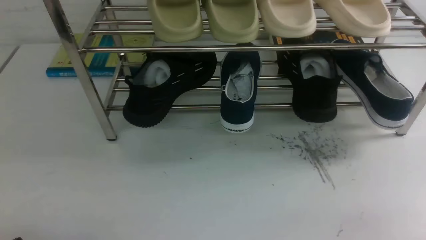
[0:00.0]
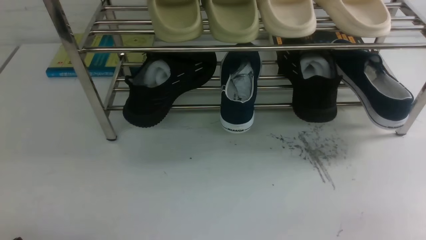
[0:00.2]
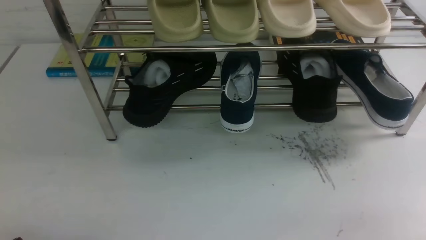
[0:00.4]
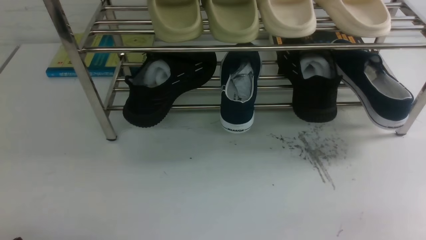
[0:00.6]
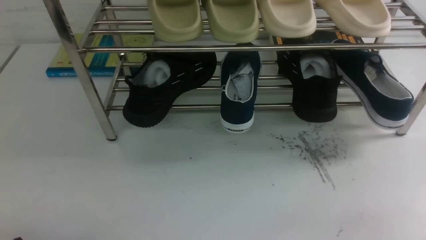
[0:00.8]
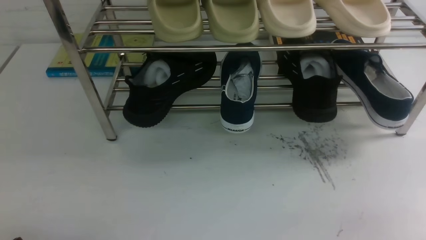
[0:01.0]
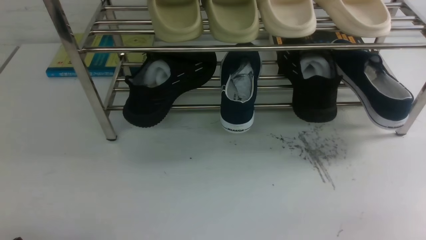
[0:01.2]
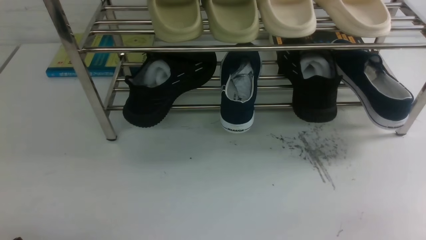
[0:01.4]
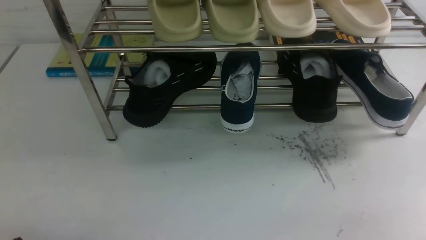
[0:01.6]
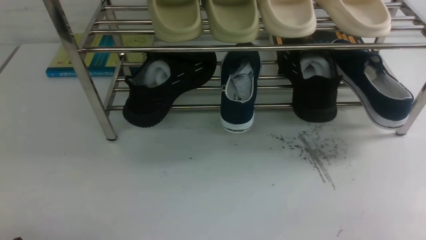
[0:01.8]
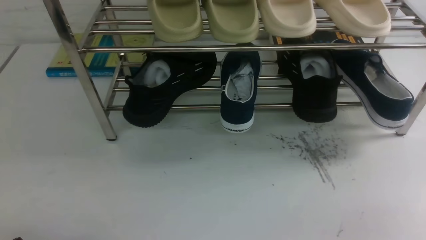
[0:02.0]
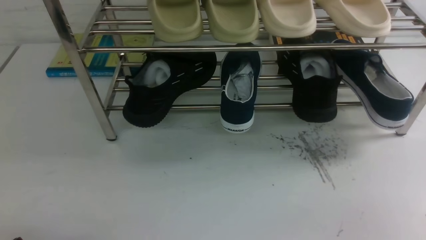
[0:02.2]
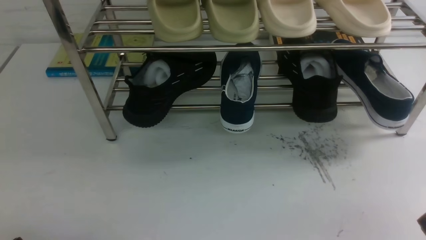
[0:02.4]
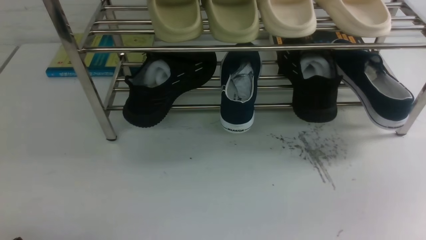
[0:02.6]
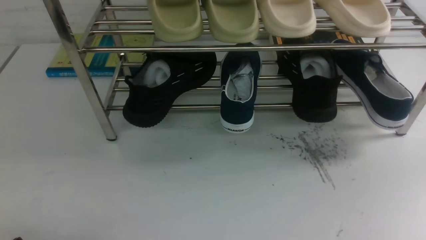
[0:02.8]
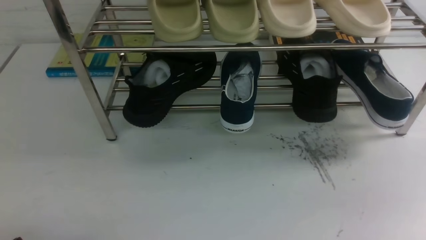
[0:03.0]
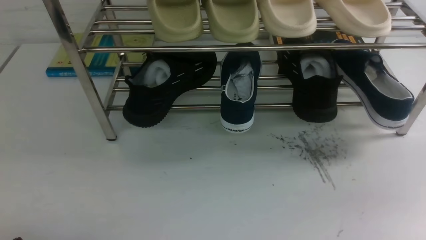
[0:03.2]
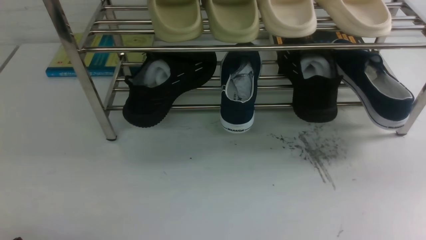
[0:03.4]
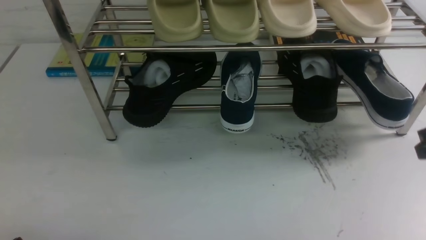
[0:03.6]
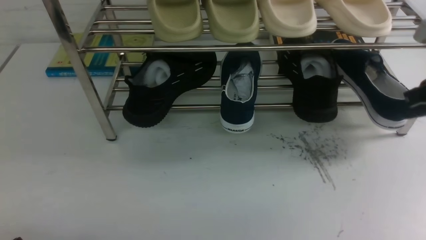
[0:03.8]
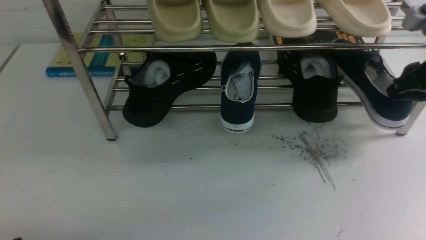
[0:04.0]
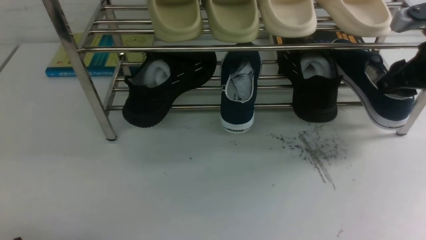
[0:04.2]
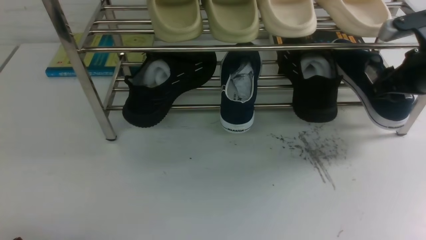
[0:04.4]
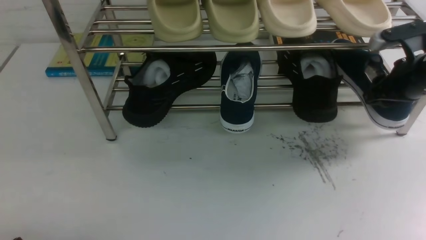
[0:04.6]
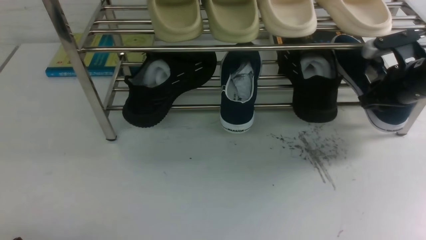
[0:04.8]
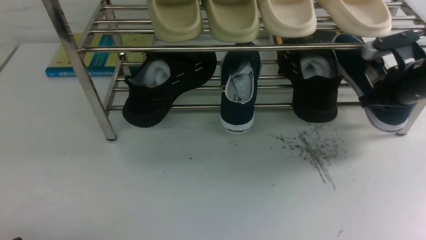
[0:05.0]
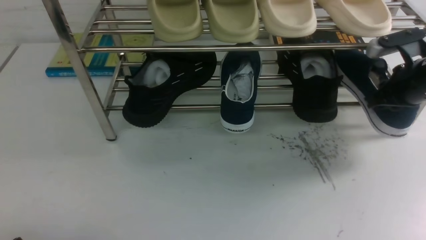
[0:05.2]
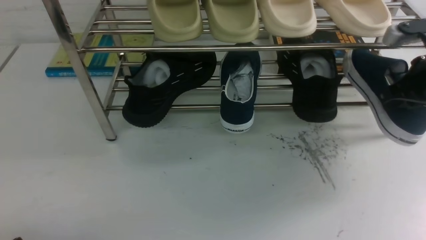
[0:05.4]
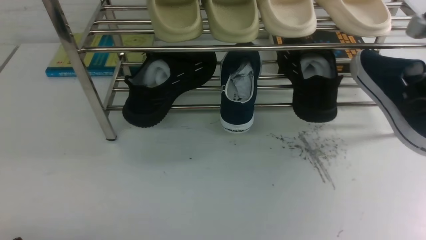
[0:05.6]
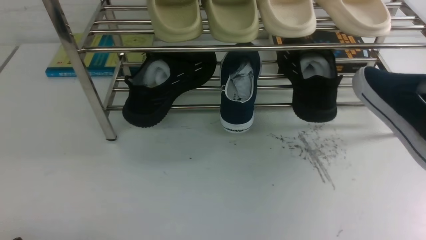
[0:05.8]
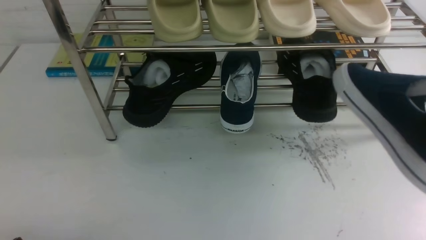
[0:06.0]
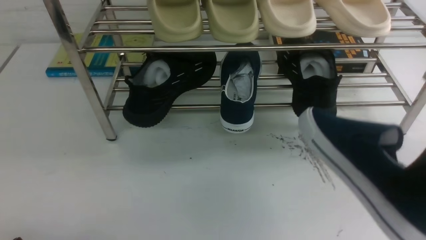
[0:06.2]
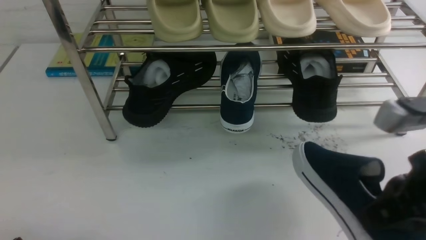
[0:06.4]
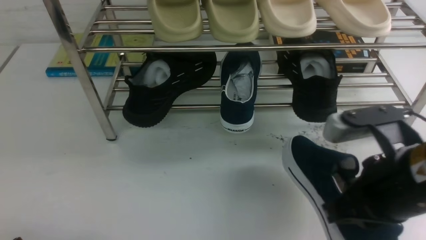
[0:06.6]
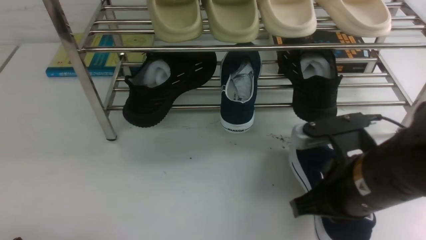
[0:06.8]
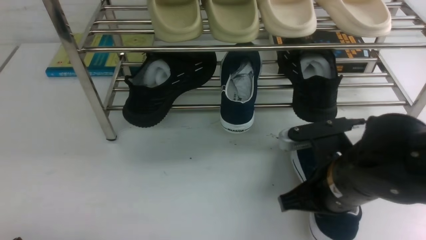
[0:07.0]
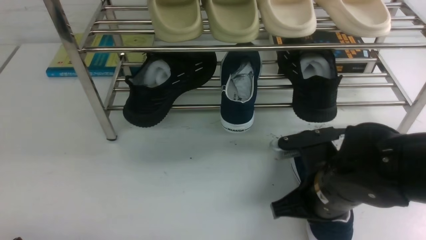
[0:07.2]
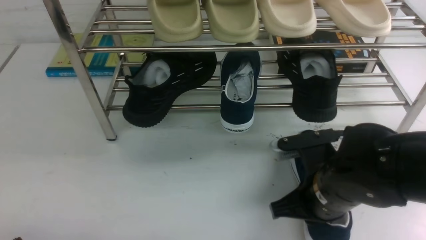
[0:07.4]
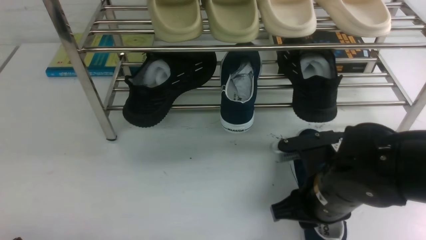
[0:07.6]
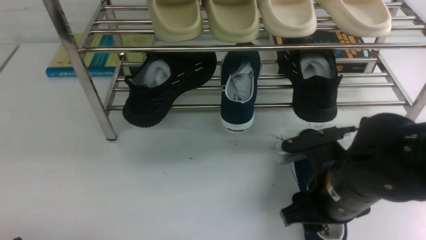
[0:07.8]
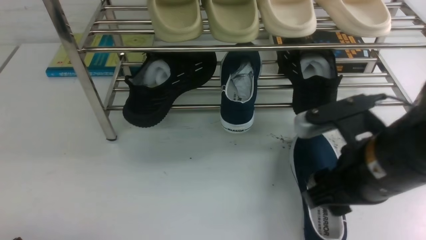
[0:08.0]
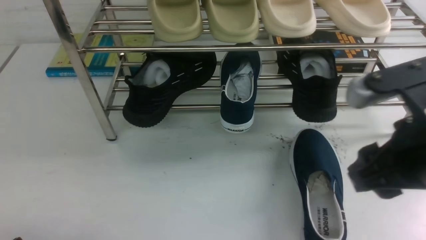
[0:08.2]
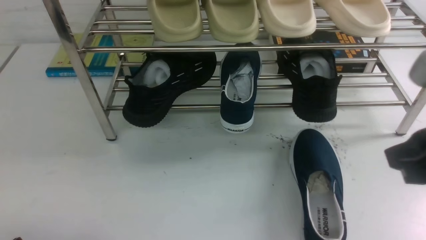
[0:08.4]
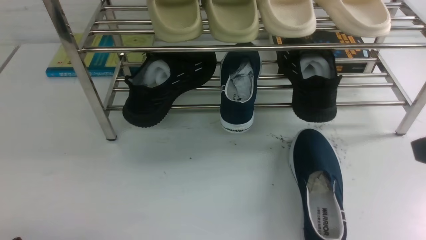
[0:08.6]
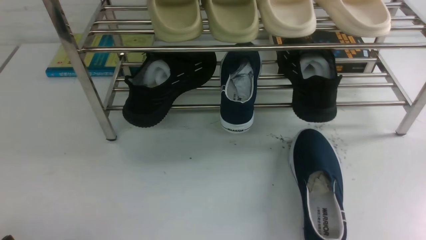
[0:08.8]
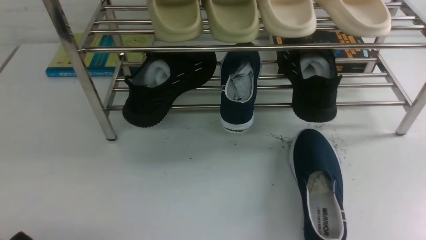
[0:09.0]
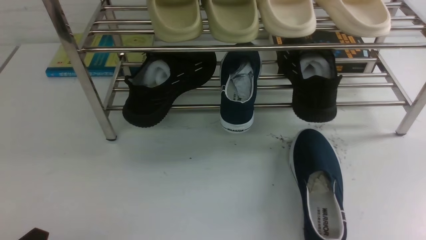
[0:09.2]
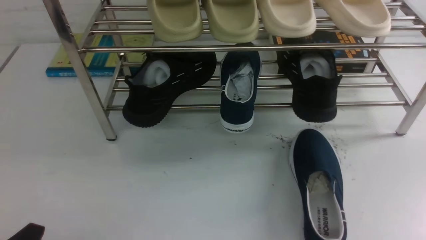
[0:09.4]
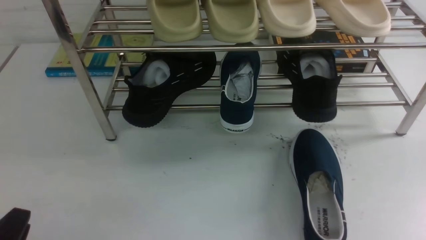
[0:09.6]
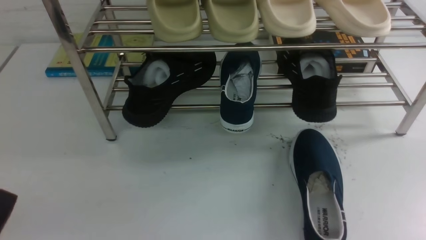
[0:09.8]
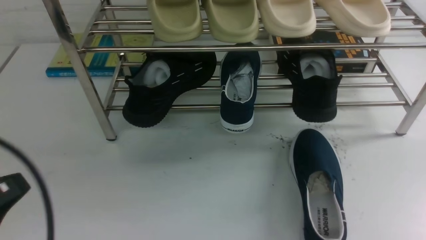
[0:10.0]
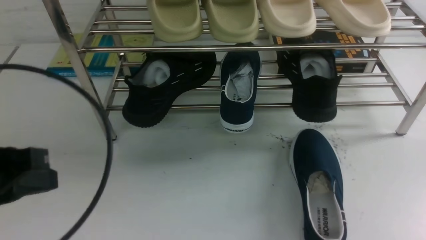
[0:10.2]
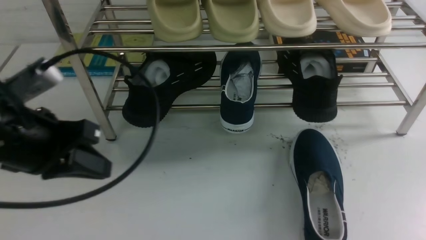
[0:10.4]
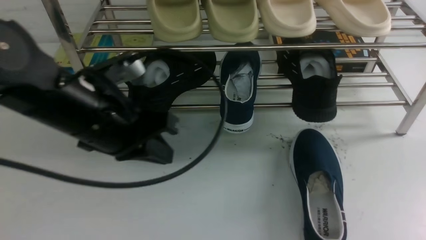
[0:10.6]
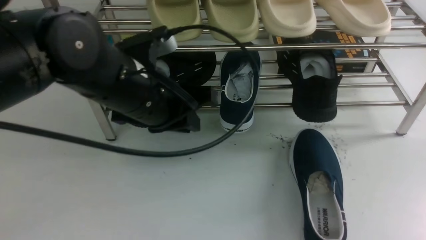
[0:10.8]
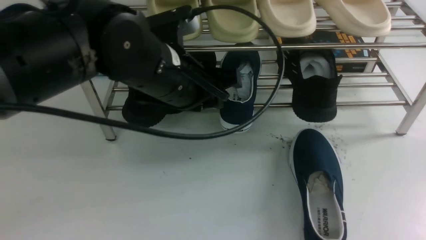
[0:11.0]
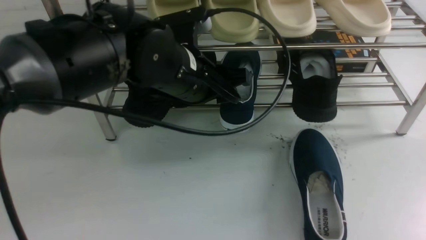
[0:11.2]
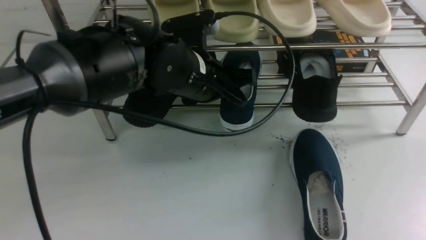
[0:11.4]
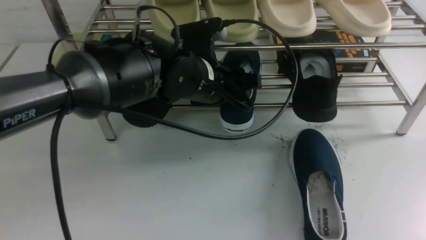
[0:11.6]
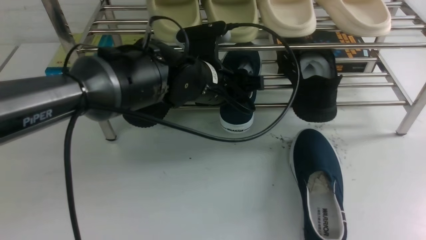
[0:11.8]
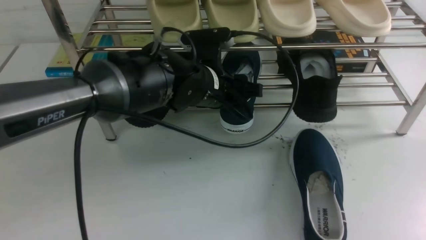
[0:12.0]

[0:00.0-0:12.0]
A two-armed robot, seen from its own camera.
Step, 0:00.0 to 0:05.4: use the right arm to clamp a shoe on the right side of the shoe rack.
Step, 0:05.6 to 0:07.8: use the right arm to take out the clamped shoe from the shoe rack and put it down.
0:03.0 to 0:04.4: The right gripper is displaced forward by roughly 25 cm, and opens.
0:04.4 to 0:06.0: The right gripper moves backward and upward, some 20 cm, and closes.
0:06.0 to 0:07.6: The right gripper moves downward and to the left, about 20 cm, and opens.
0:07.6 to 0:09.0: The right gripper heads upward, to the right and backward, covering about 25 cm, and closes its fingers.
0:09.0 to 0:10.4: The left gripper shifts roughly 20 cm forward, upward and to the right, and closes its fingers.
0:10.4 to 0:12.0: The left gripper moves to the right and forward, some 25 cm, and opens its fingers.

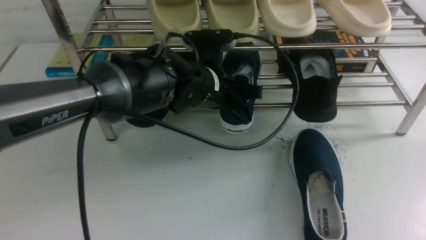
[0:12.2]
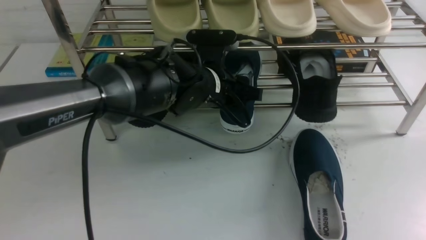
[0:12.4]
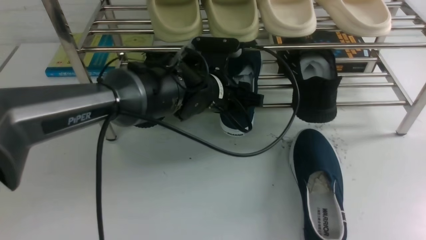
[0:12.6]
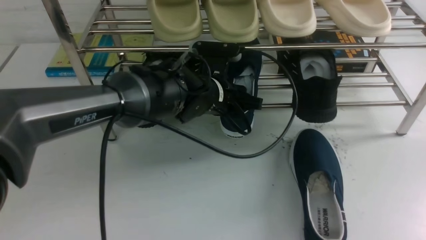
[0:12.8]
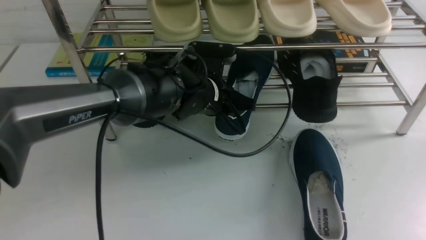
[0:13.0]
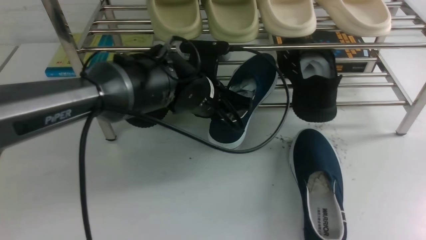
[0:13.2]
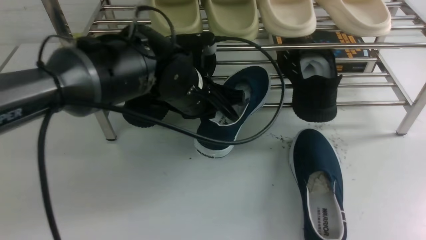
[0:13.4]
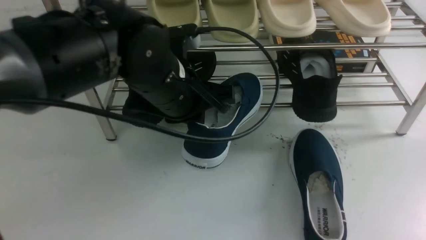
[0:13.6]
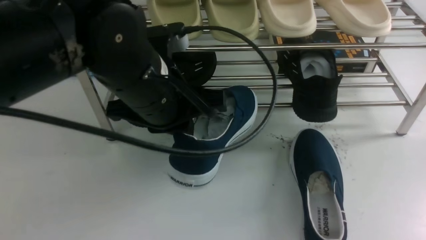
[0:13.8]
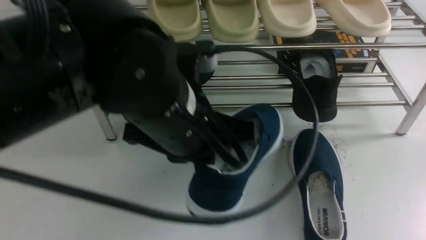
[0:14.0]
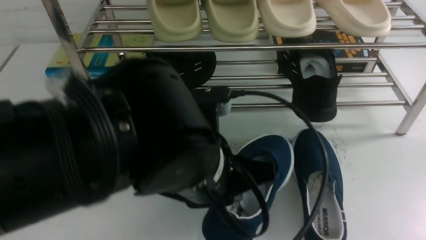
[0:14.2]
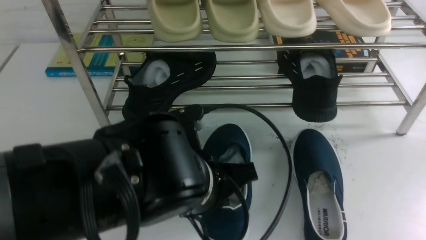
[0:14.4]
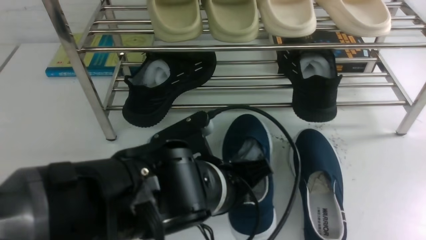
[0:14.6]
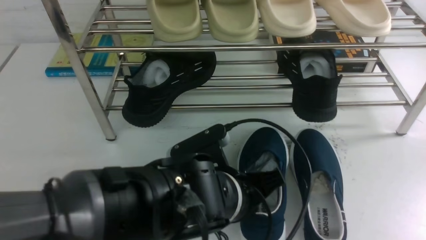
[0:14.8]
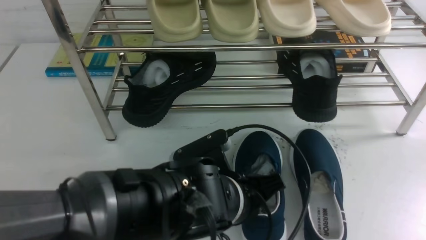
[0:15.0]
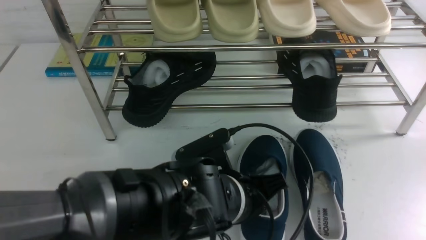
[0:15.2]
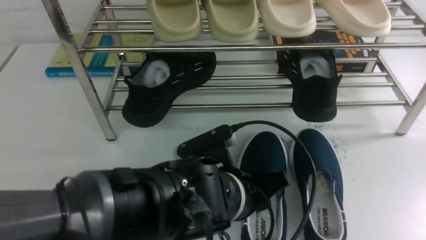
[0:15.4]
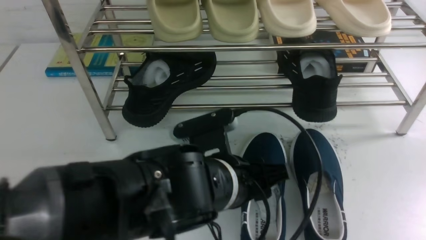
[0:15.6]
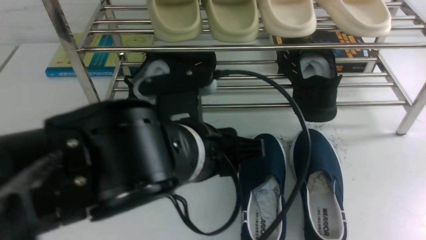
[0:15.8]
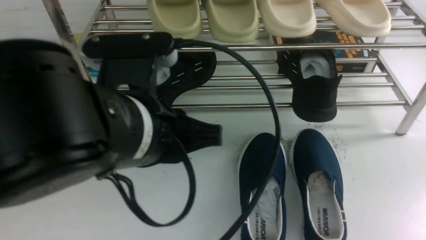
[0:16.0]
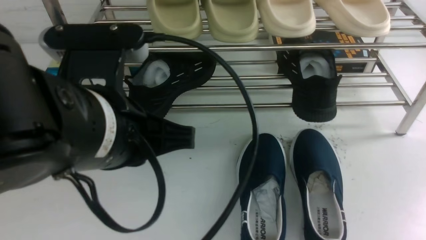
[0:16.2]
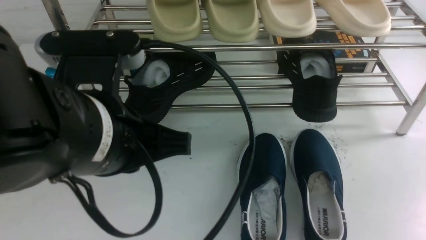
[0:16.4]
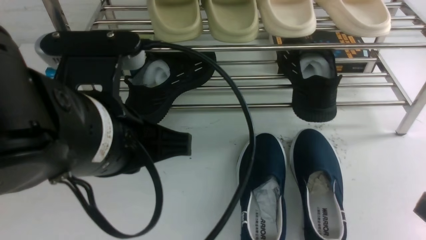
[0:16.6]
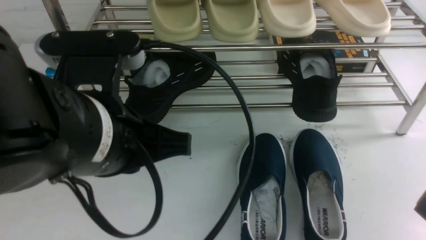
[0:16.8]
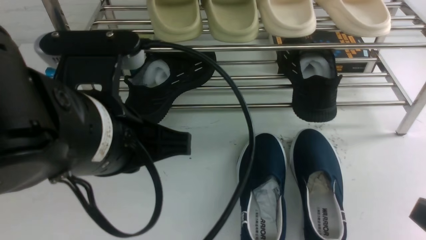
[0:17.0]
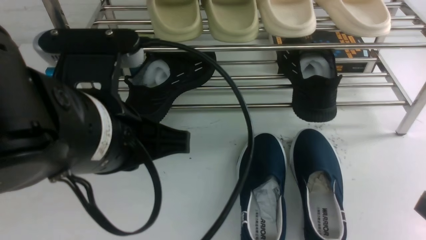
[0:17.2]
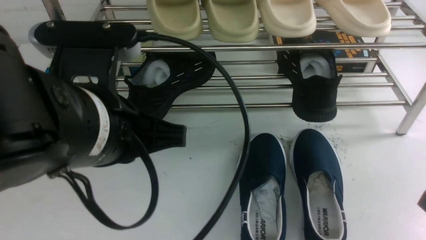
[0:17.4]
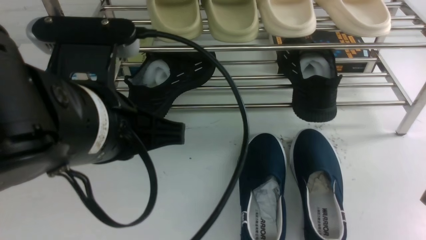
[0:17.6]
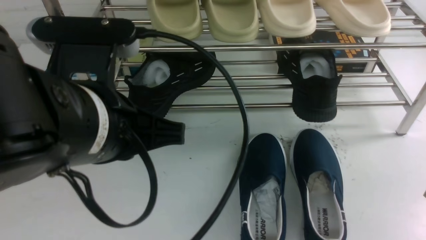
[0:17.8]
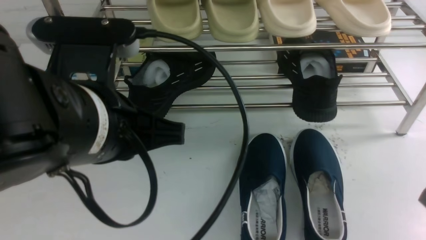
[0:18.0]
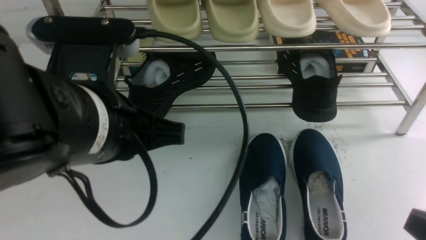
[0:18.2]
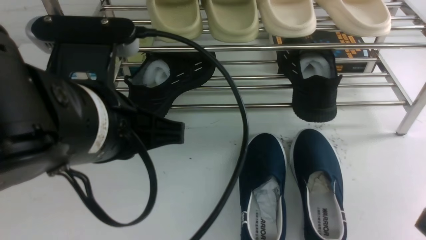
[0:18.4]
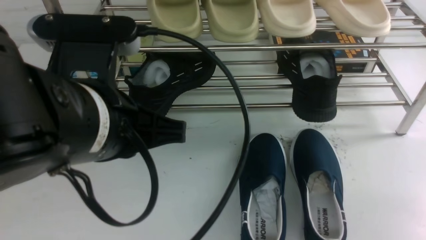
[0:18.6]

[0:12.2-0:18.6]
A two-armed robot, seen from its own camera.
Step, 0:13.4 to 0:15.6: Use your left arm to remove the clamped shoe from the shoe rack and put it down.
0:12.2 to 0:13.8: The left gripper travels backward and upward by about 15 cm, and closes.
0:13.8 to 0:15.4: The left gripper is displaced downward, to the right and backward by about 15 cm, and opens its fingers.
0:15.4 to 0:17.0: The right gripper goes some 15 cm downward, and closes; the left gripper travels upward and to the left by some 20 cm, and closes its fingers.
0:17.0 to 0:18.6: The right gripper travels downward by roughly 5 cm.
